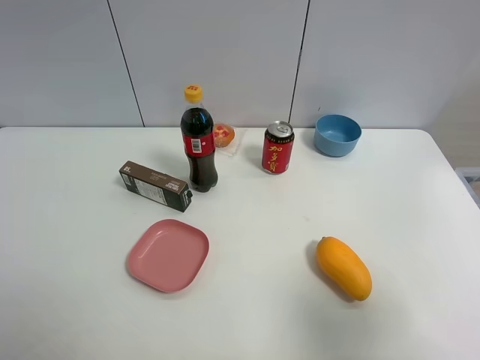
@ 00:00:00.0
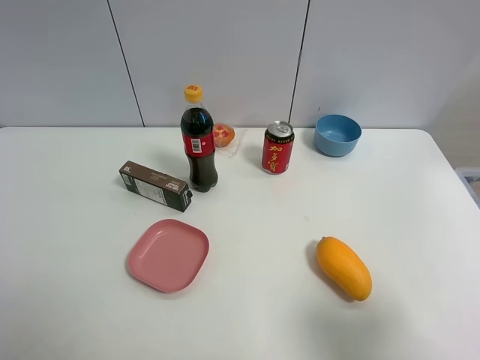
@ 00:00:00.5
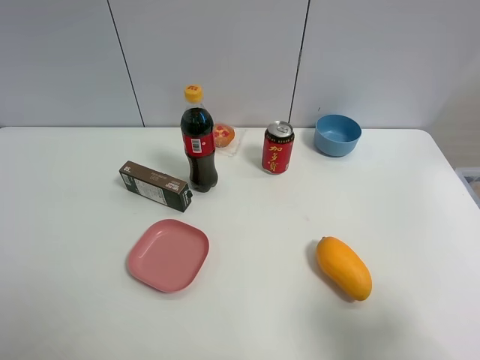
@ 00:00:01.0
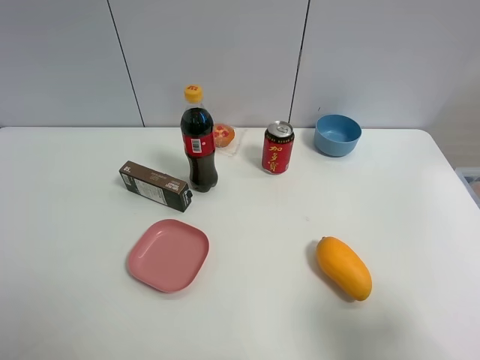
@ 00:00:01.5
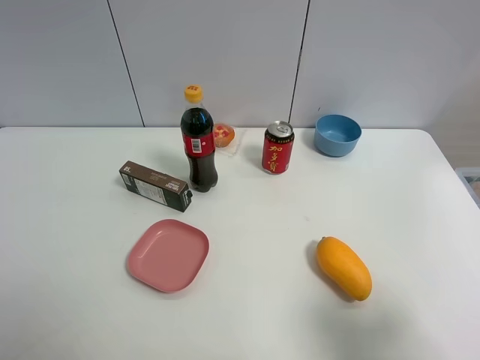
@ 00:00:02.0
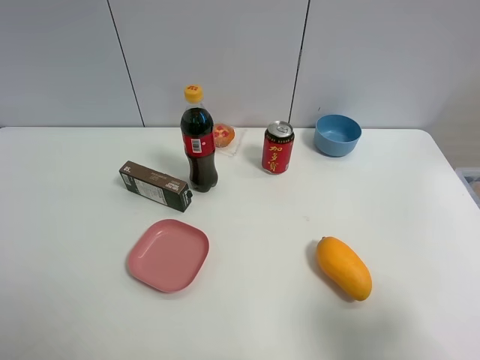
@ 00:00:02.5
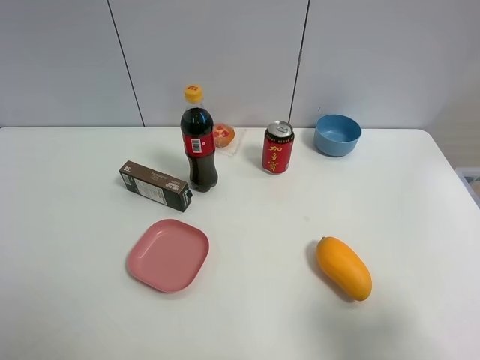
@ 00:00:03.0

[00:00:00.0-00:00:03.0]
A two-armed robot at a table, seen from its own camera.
Task of the whole recording: the gripper move the object.
00:00:01.5 to 00:00:03.0: Both grippers stay put.
